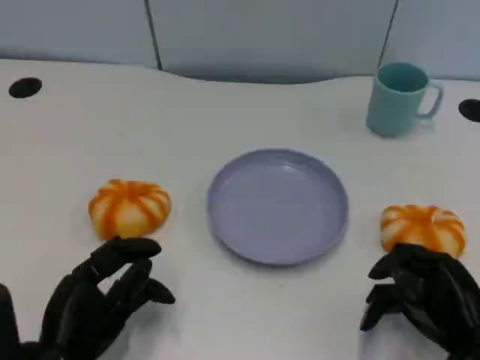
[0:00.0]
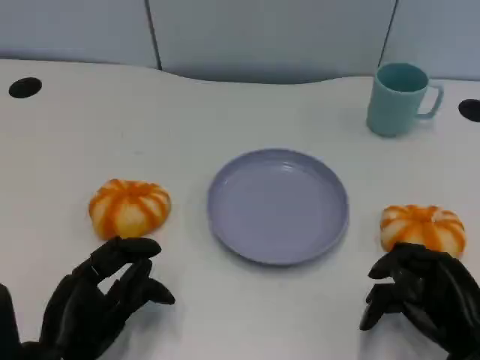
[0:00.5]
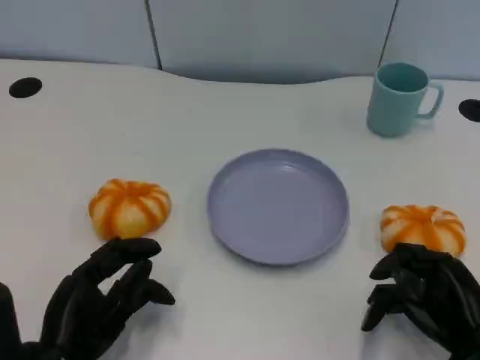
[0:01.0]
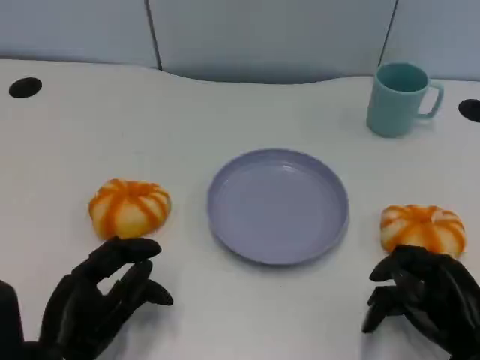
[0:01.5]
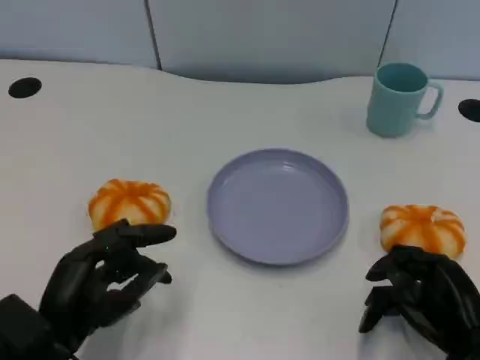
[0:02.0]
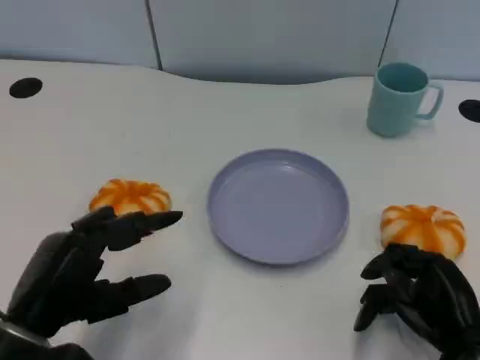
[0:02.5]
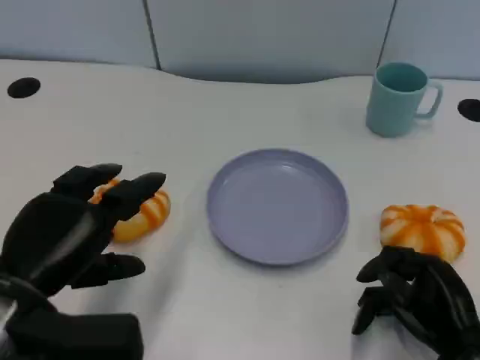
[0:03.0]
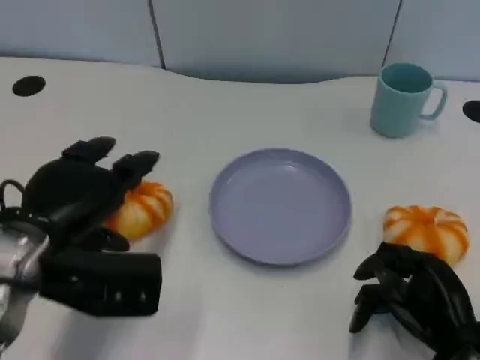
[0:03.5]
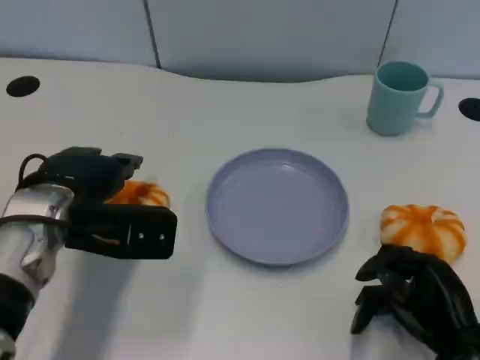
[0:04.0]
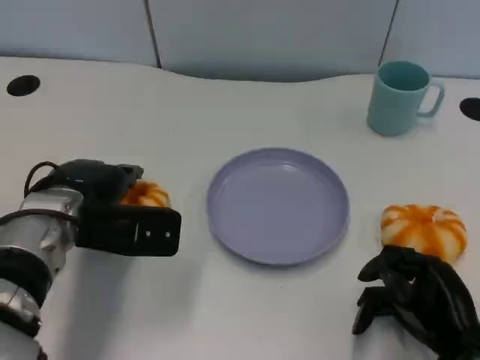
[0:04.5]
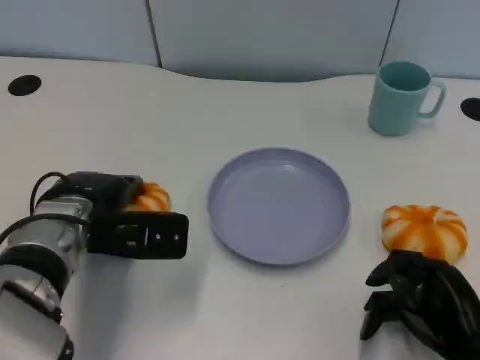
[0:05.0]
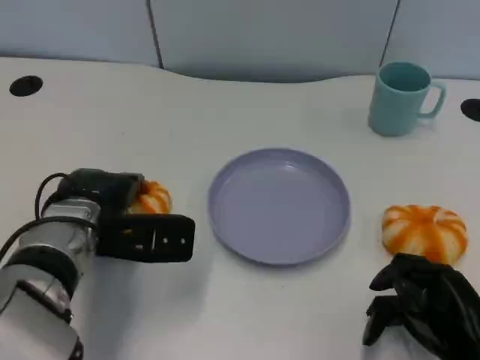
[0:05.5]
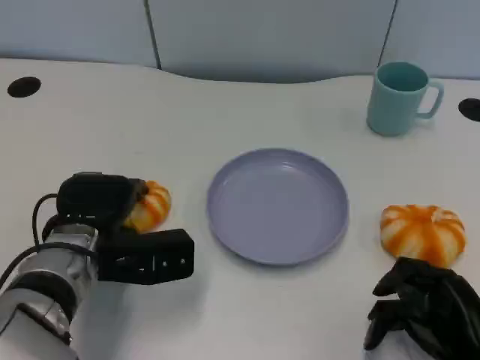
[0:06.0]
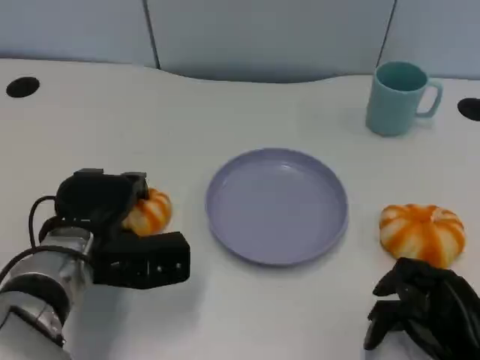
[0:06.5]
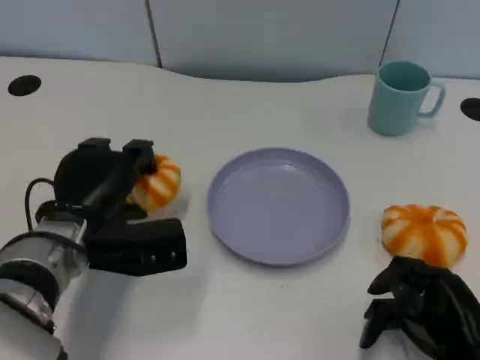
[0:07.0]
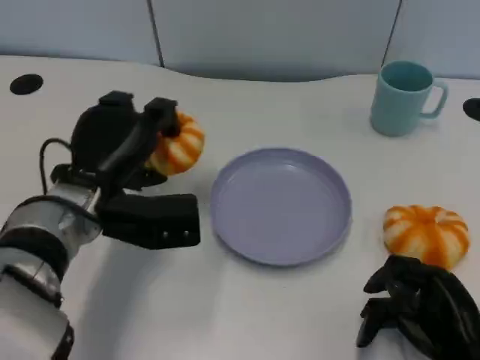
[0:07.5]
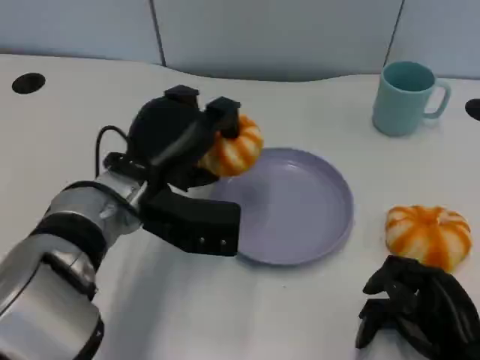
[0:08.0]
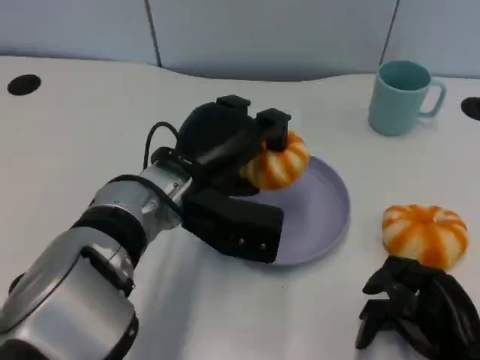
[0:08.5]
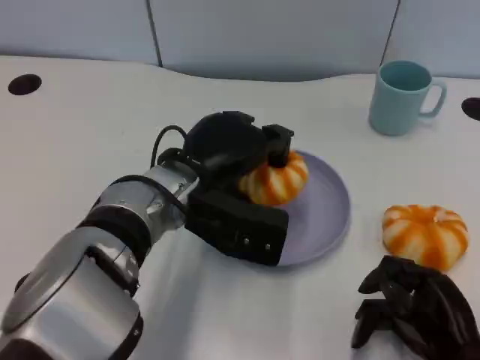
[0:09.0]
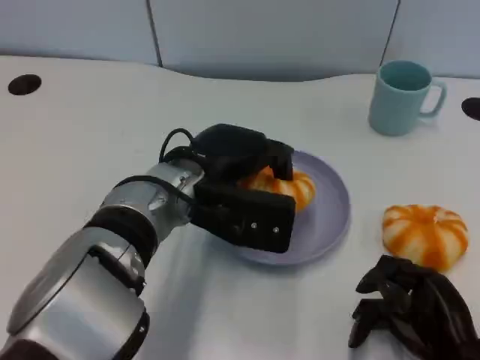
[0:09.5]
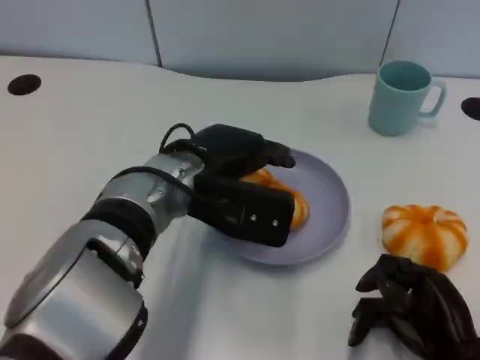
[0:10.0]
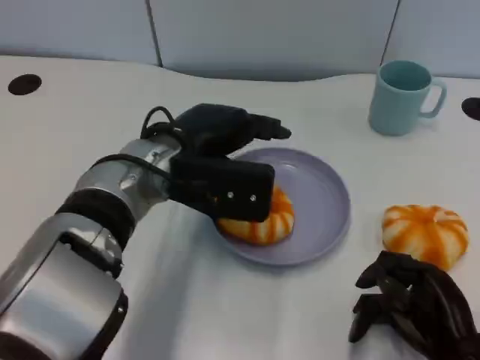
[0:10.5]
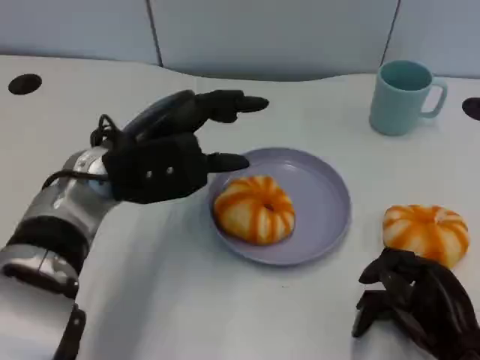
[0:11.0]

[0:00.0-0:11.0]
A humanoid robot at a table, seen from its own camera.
Task of the whole recording: Grasp the bread from the table and place it into the plate.
0:02.0 to 0:03.5: The left hand heads upward and forward, covering some 10 cm.
0:03.5 to 0:05.5: The left hand shifts about 10 cm downward and forward.
0:07.5 to 0:09.0: The left hand travels to the right by about 10 cm.
0:09.0 to 0:11.0: The left hand travels to the left by approximately 5 cm.

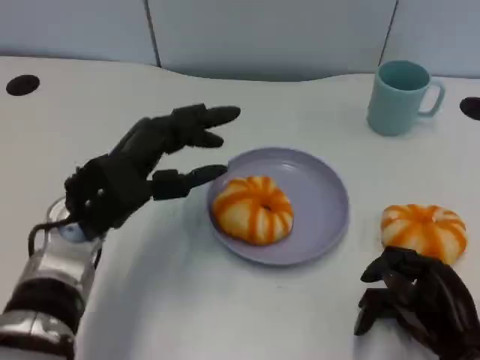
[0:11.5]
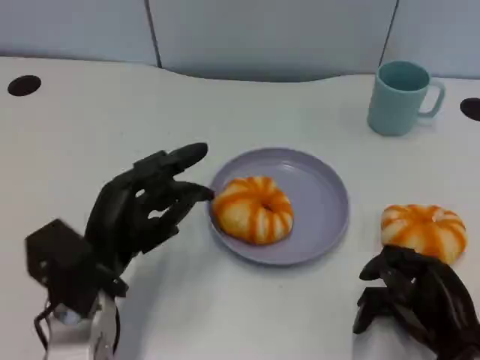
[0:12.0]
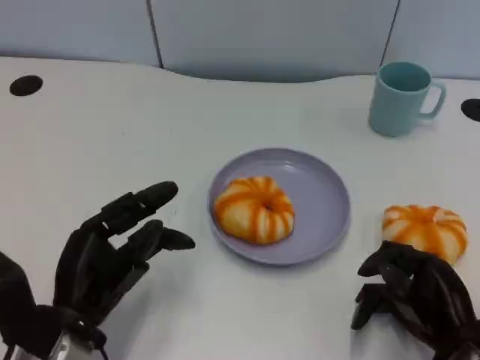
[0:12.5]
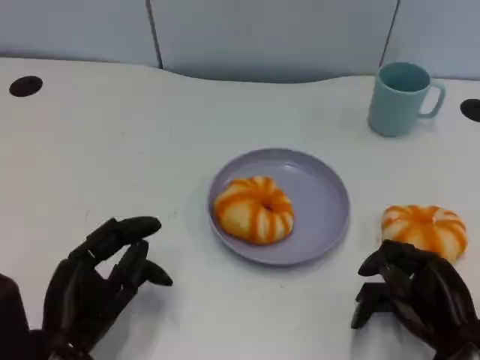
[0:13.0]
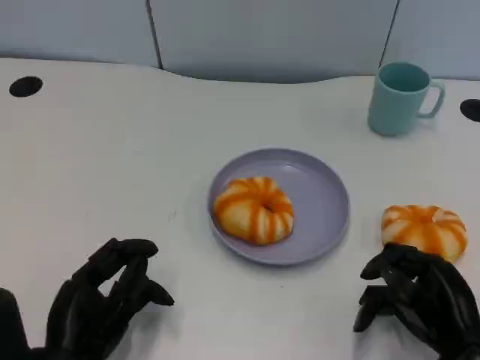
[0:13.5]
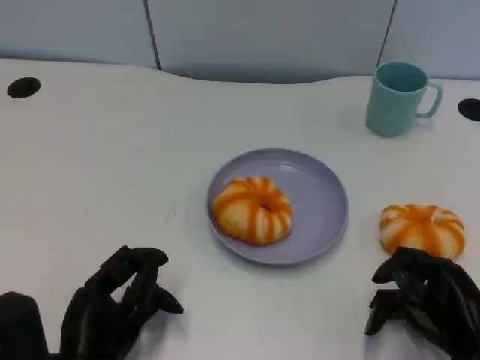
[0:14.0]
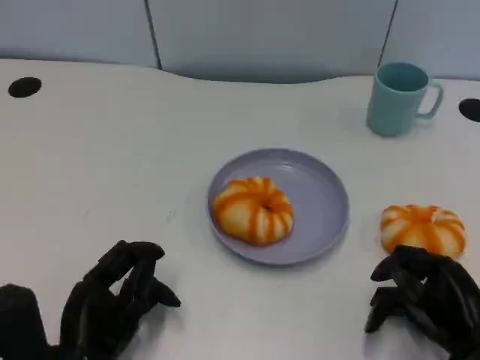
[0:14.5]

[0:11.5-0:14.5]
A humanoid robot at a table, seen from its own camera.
Task of the whole recording: Grasp the bread from the table and place it into the plate.
0:11.5 to 0:13.0: The left hand goes about 15 cm backward and downward.
0:13.0 to 0:14.5: There are only small adjustments of the hands.

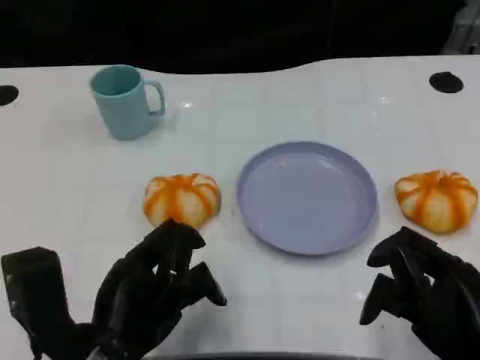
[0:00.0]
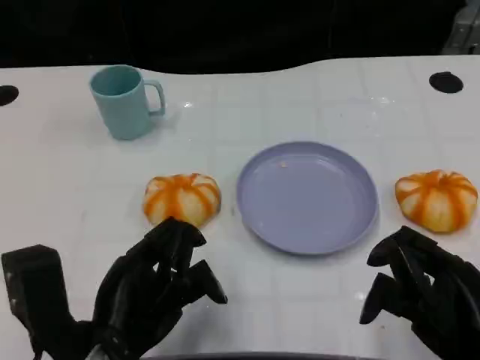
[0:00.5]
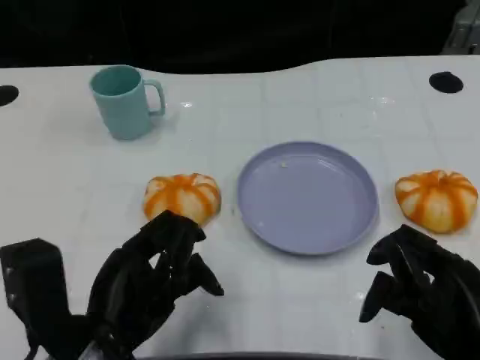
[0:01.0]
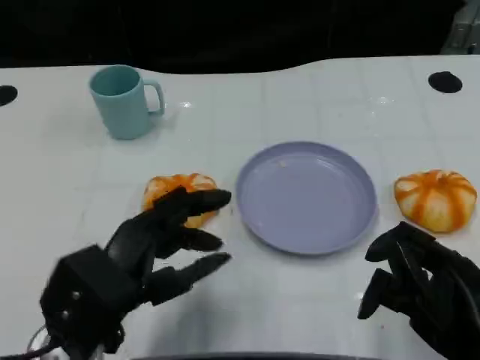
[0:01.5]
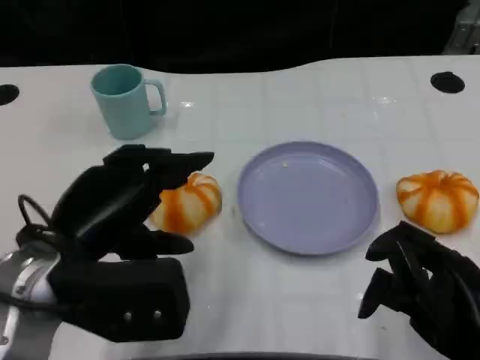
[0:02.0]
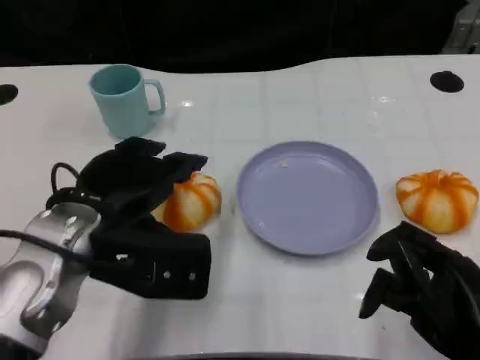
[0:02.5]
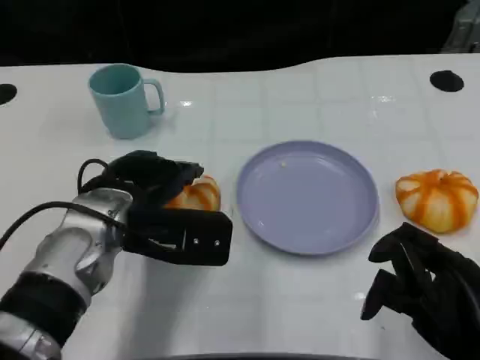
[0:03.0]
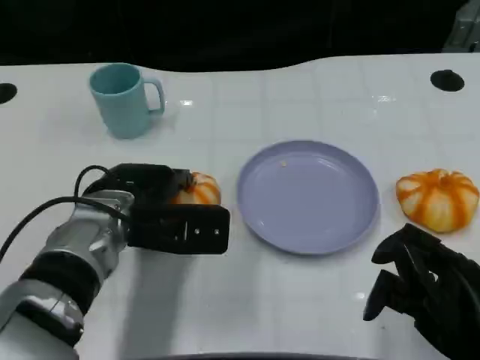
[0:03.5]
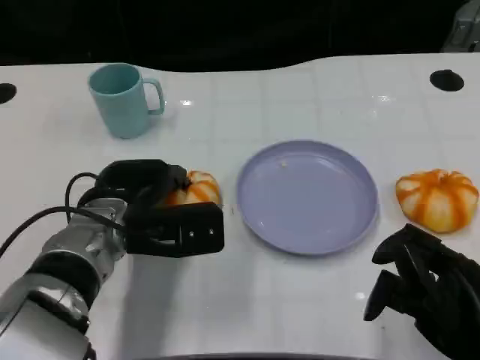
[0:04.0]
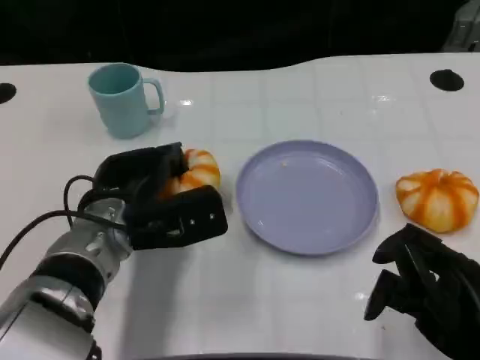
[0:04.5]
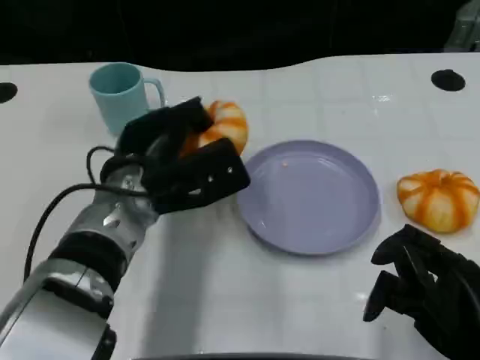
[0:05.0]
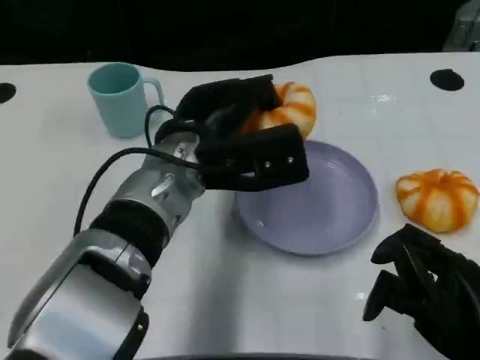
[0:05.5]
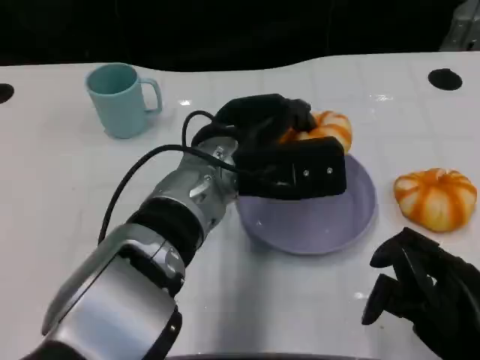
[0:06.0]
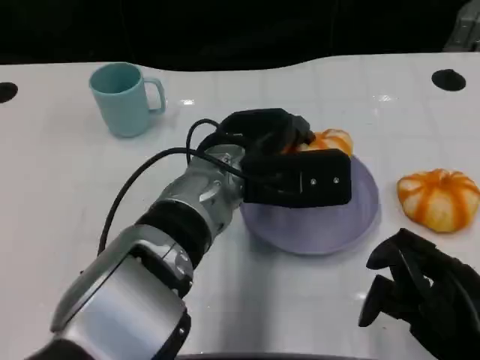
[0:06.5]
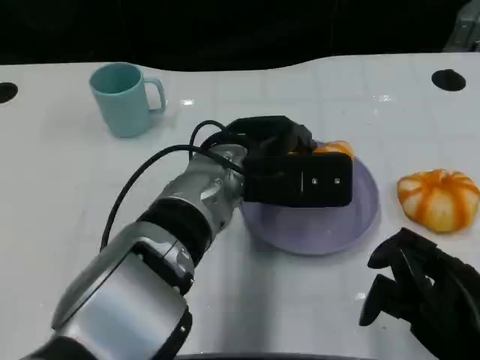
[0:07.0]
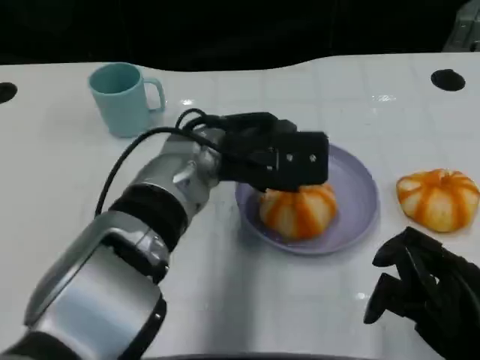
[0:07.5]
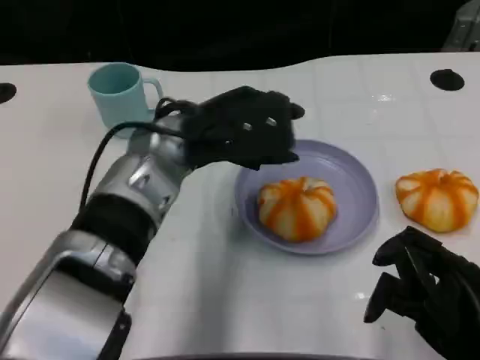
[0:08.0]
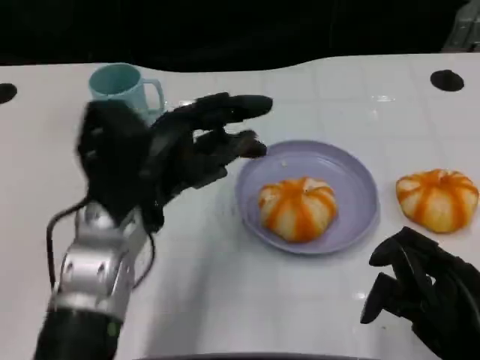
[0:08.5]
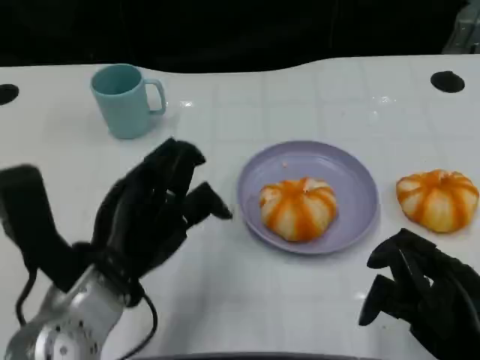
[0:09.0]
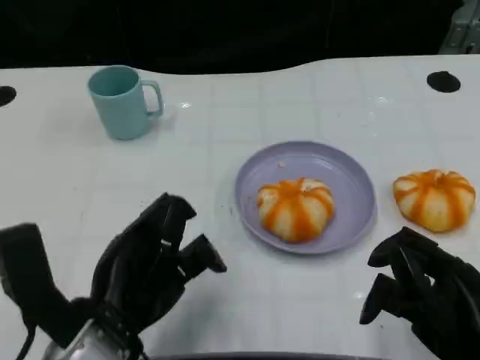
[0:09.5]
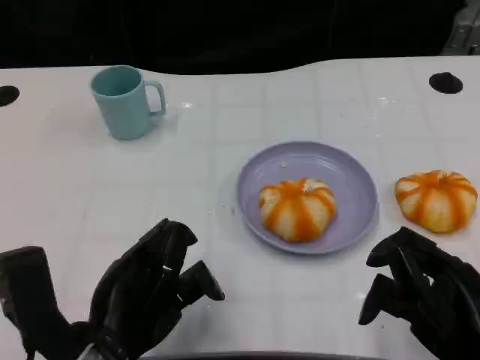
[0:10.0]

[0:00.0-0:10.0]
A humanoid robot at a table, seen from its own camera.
Task of the whole recording: Grasp the bread from the table and place it into the plate.
0:00.0 to 0:02.0: The left hand shifts about 5 cm upward.
0:02.0 to 0:04.0: The left hand shifts approximately 10 cm forward and downward.
0:04.0 to 0:06.0: The left hand is displaced to the right and upward by about 15 cm.
0:06.0 to 0:08.0: The left hand travels to the left by roughly 5 cm.
0:08.0 to 0:10.0: The left hand moves backward, to the left and downward, approximately 20 cm.

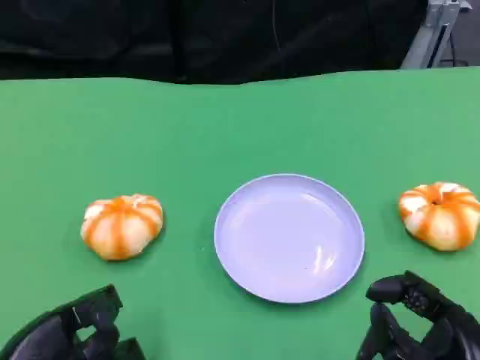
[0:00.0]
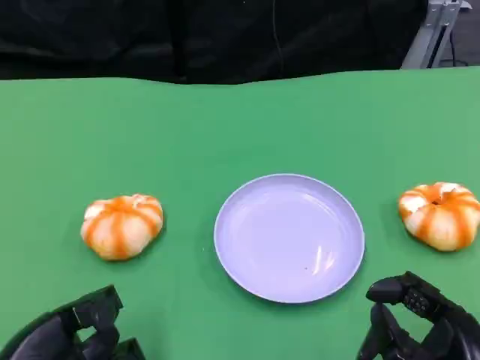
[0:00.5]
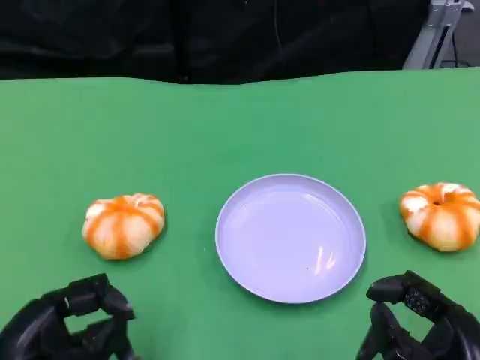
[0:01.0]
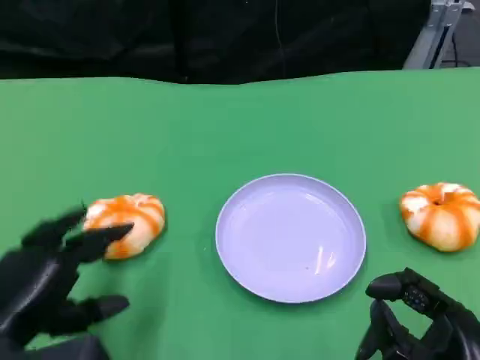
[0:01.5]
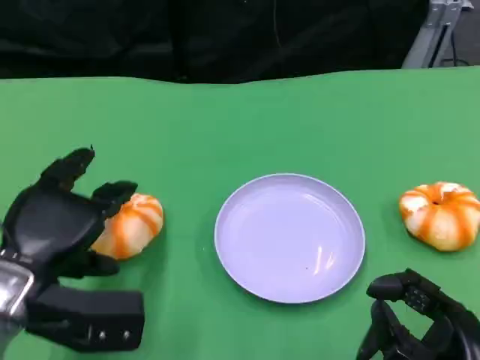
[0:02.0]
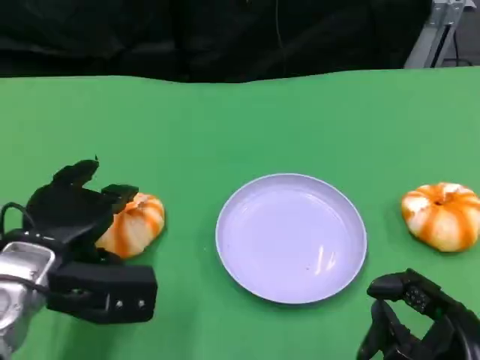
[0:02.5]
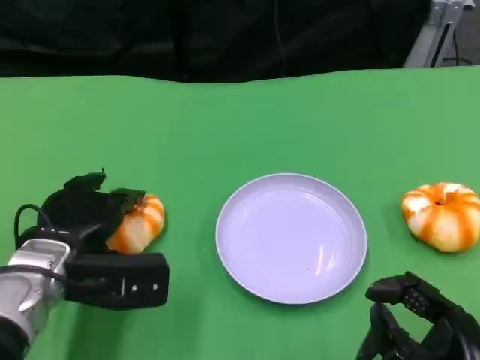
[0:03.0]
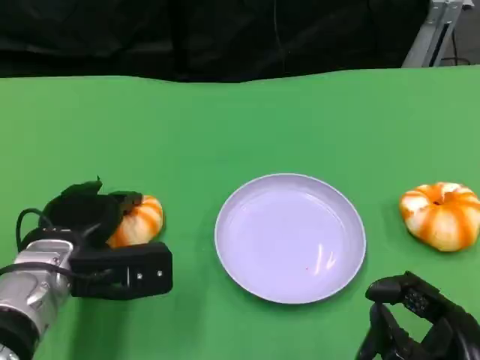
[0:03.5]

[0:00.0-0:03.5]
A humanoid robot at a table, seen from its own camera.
Task of the whole recording: Grasp the bread from the table and place it into the plate.
0:00.0 to 0:02.0: The left hand is displaced forward by some 10 cm.
0:02.0 to 0:03.5: The left hand shifts by roughly 5 cm.
